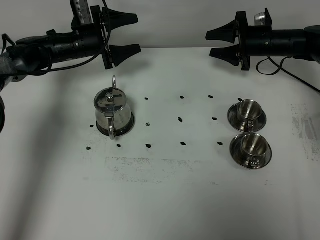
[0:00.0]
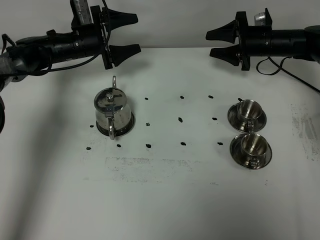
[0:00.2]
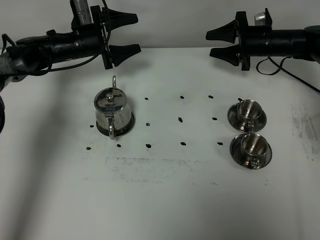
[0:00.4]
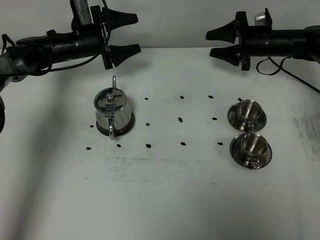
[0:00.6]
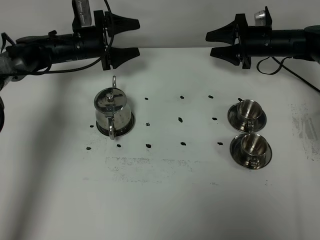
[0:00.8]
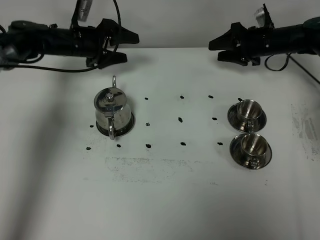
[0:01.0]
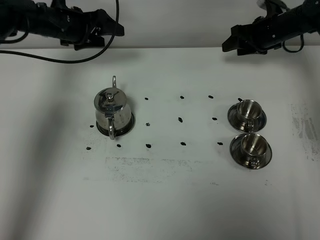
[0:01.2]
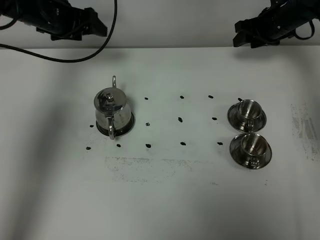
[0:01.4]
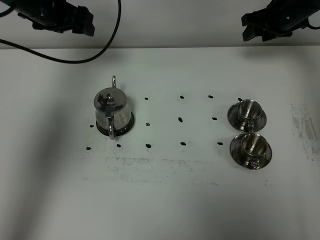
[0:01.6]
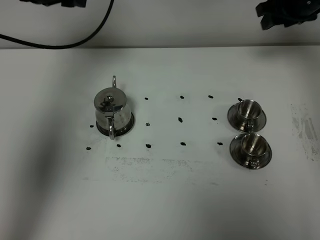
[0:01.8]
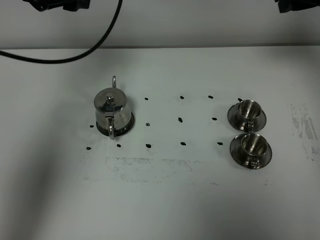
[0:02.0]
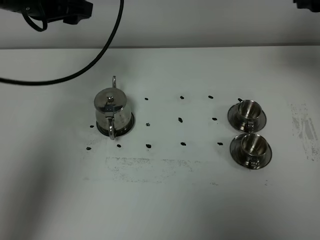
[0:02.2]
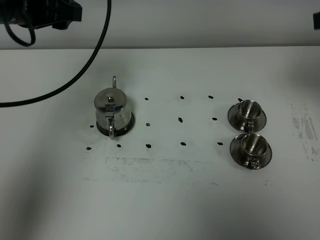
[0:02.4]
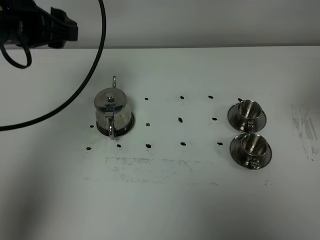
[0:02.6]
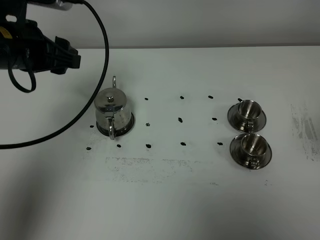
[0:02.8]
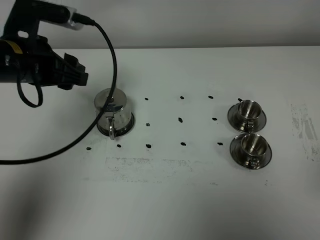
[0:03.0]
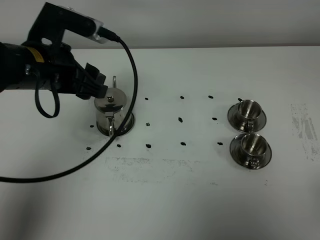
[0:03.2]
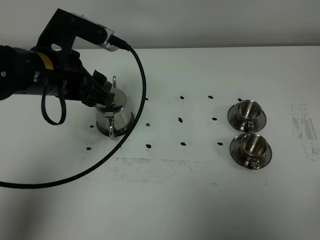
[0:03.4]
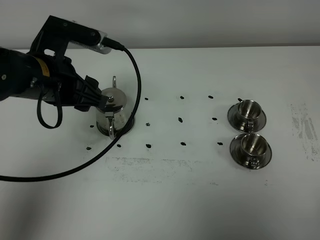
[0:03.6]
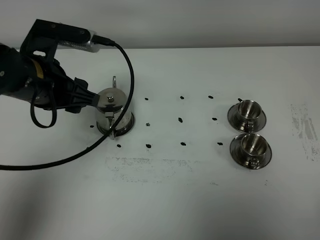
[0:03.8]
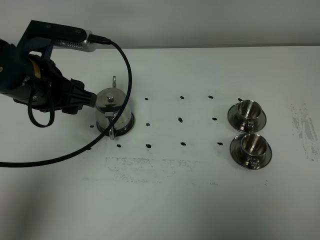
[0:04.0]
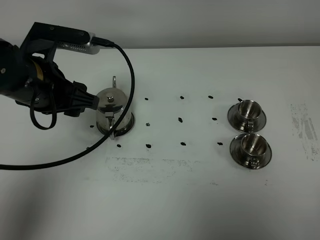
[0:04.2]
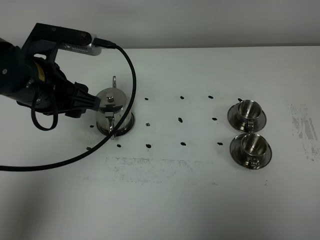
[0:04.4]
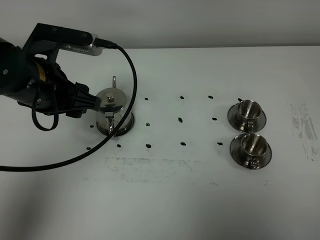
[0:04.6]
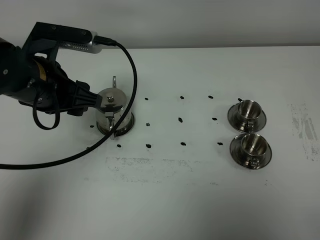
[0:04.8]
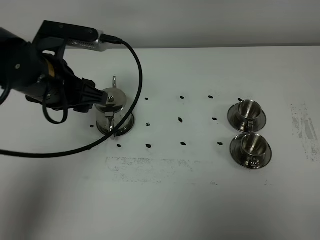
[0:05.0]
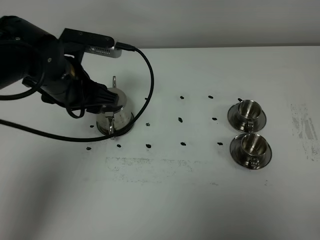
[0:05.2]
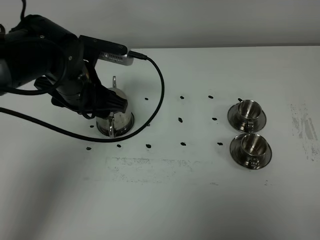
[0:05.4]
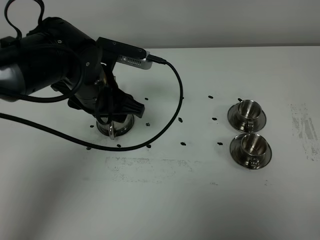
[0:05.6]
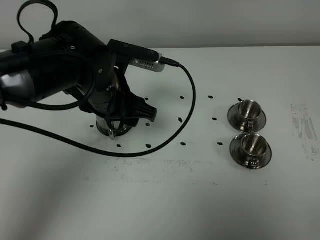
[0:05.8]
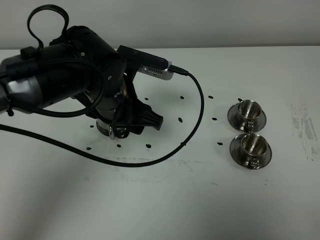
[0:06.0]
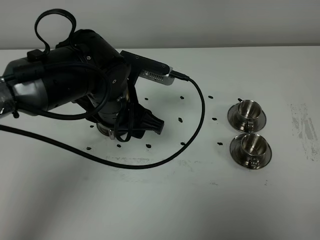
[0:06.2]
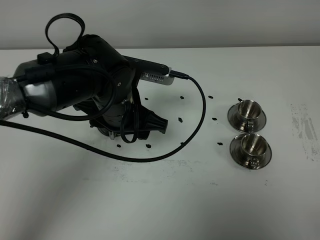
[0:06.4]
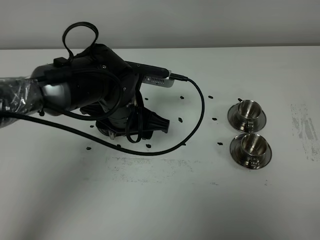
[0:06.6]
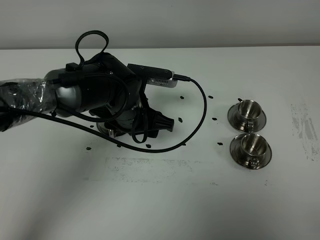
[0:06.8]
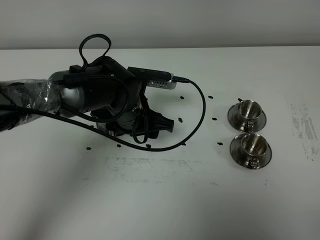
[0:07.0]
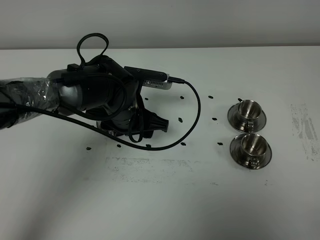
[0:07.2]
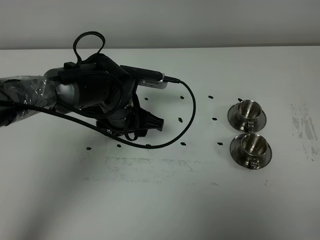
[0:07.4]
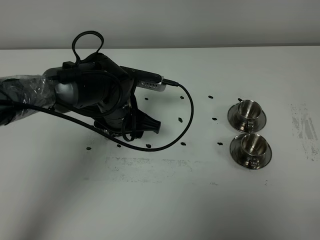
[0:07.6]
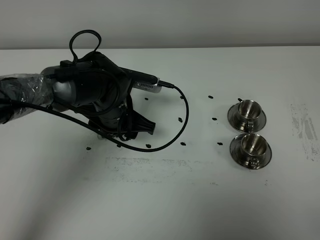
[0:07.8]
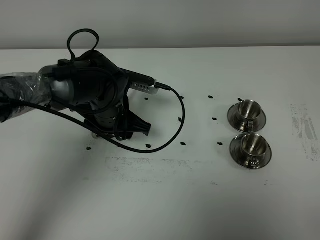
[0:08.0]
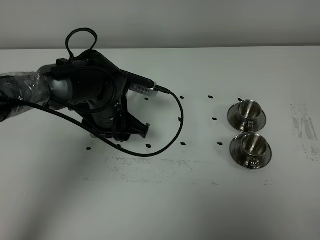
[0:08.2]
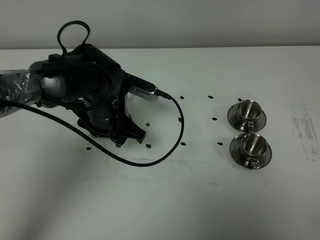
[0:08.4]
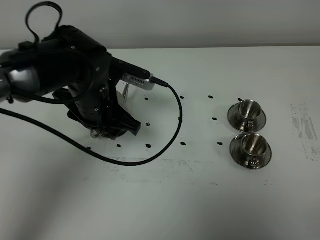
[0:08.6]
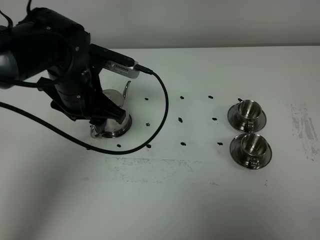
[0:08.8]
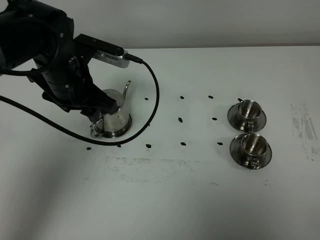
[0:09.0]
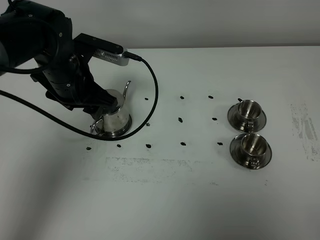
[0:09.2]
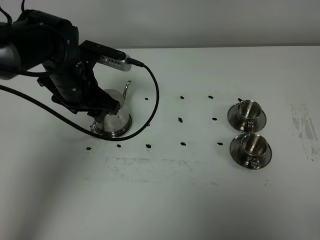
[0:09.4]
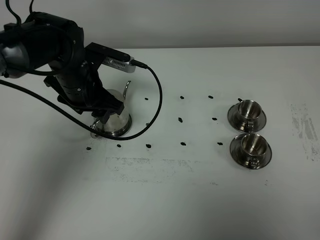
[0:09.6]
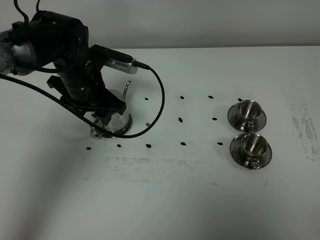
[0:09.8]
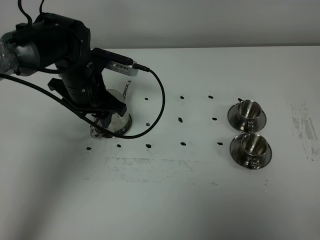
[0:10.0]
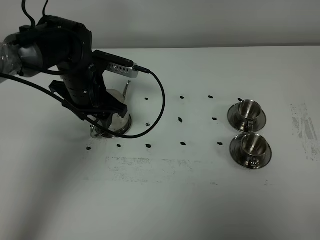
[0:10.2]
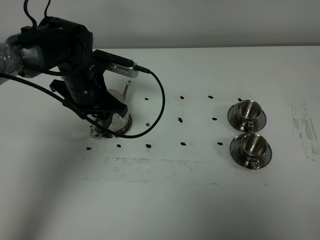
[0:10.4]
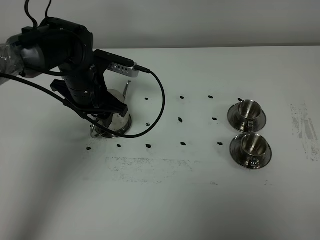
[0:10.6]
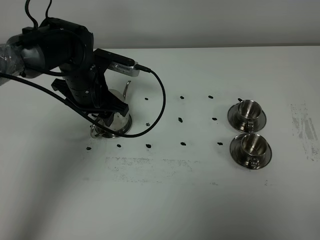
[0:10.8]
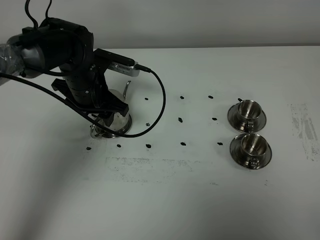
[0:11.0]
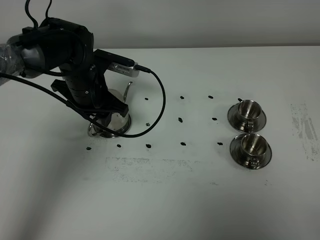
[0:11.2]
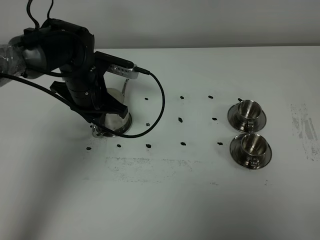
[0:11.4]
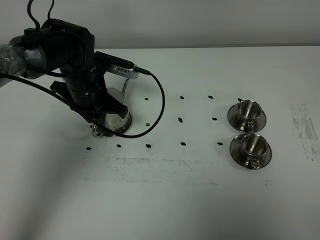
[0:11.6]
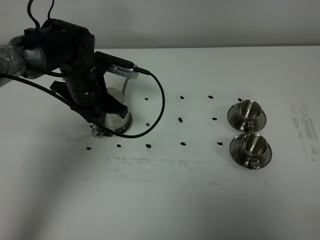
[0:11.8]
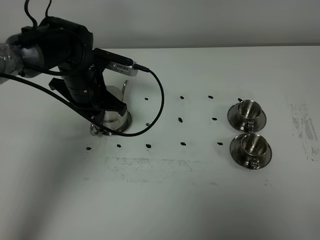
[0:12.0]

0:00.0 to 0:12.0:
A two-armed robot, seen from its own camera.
Task of the whole recording: grasp the stainless steel teapot and pour the tea into the two stainless steel teacups one by one, put the stainless steel teapot back in its original place.
0:00.0 to 0:01.6: The left gripper shifts approximately 15 cm upward; the right gripper goes approximately 10 cm upward.
0:01.6 to 0:03.0: The right gripper shifts approximately 50 cm backward. Meanwhile the left gripper shifts approximately 20 cm backward.
0:03.0 to 0:04.4: The right gripper is displaced downward and backward by about 10 cm, and closes.
0:04.4 to 0:06.0: The left gripper goes some 10 cm to the right, while the right gripper closes its fingers.
0:06.0 to 0:07.6: The left gripper moves downward, some 10 cm.
0:07.6 to 0:09.0: The left gripper is displaced upward and to the left by roughly 10 cm.
0:09.0 to 0:10.4: The left gripper shifts approximately 5 cm downward.
0:10.4 to 0:12.0: The left gripper closes.

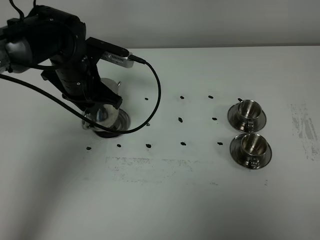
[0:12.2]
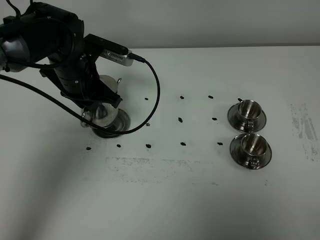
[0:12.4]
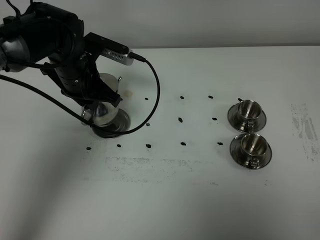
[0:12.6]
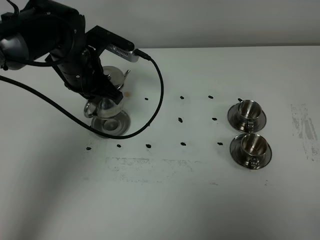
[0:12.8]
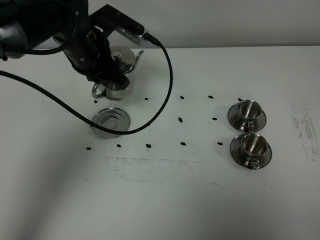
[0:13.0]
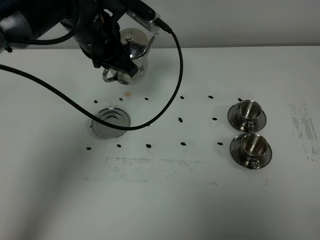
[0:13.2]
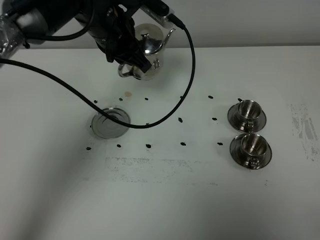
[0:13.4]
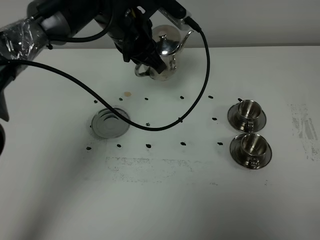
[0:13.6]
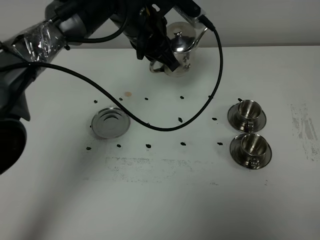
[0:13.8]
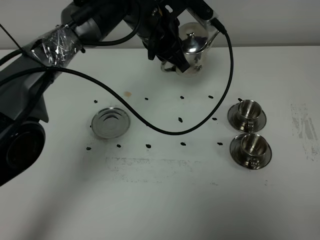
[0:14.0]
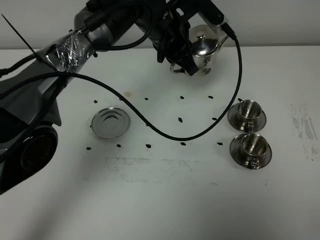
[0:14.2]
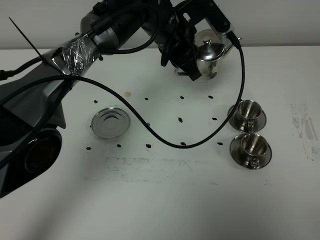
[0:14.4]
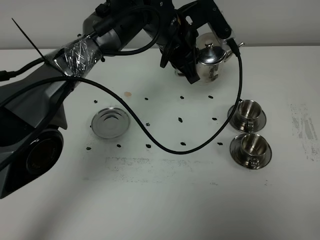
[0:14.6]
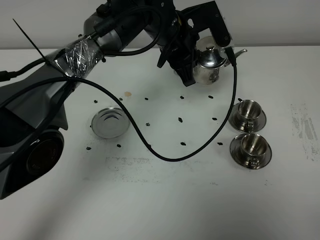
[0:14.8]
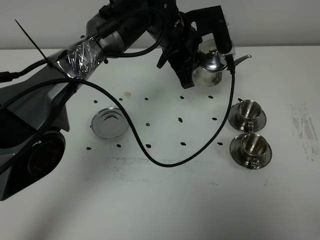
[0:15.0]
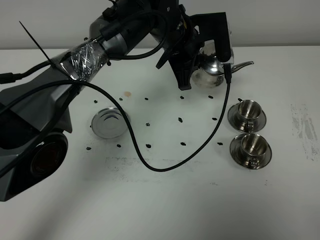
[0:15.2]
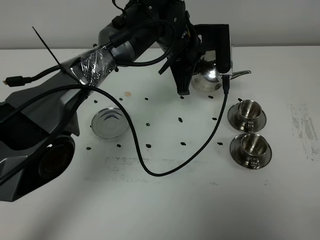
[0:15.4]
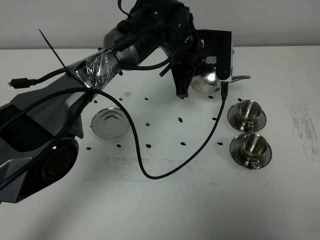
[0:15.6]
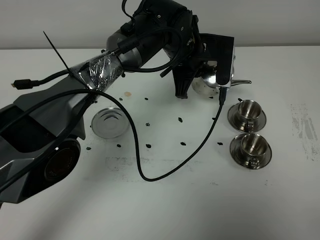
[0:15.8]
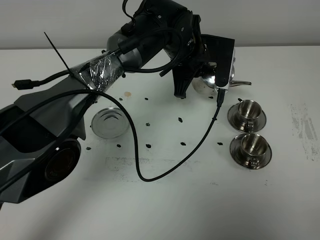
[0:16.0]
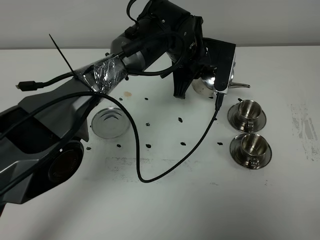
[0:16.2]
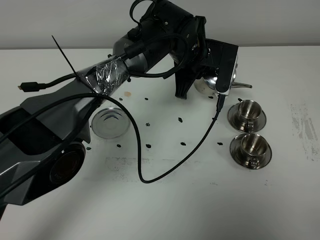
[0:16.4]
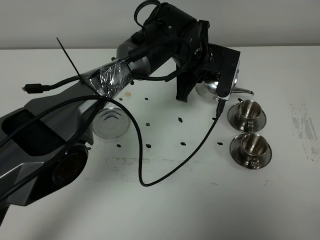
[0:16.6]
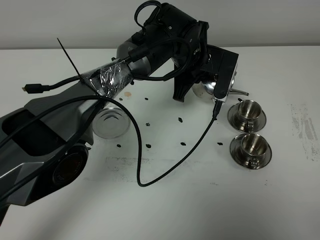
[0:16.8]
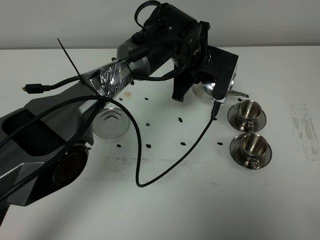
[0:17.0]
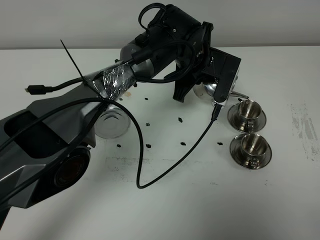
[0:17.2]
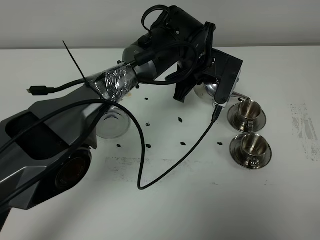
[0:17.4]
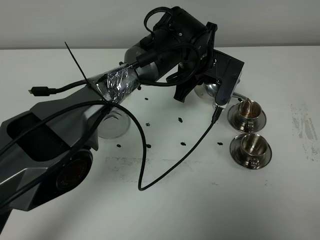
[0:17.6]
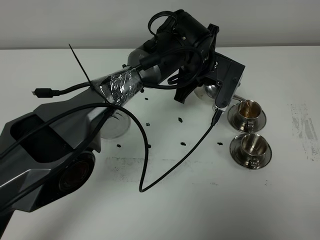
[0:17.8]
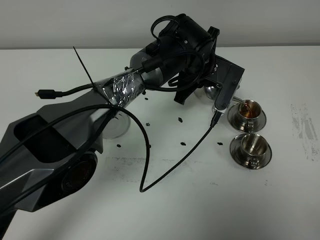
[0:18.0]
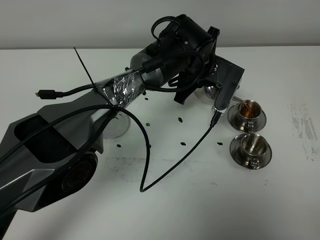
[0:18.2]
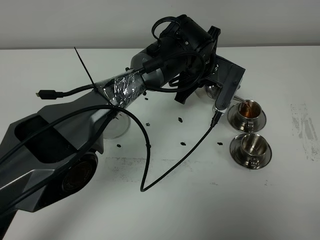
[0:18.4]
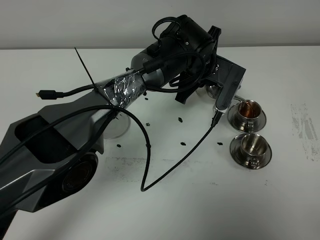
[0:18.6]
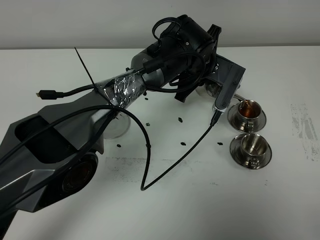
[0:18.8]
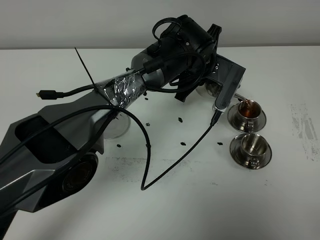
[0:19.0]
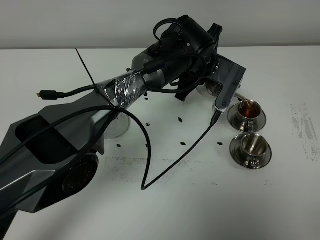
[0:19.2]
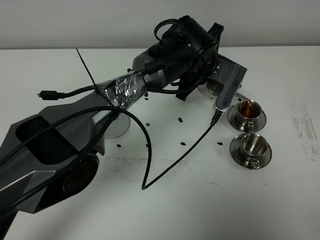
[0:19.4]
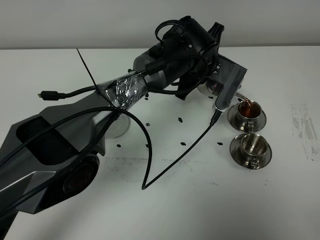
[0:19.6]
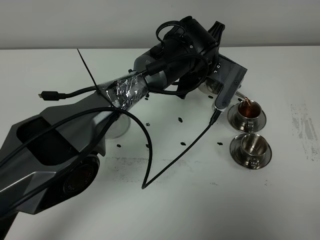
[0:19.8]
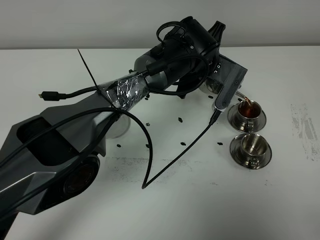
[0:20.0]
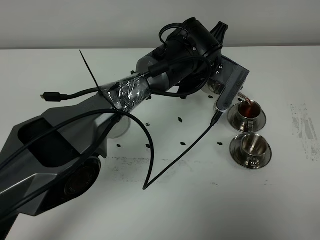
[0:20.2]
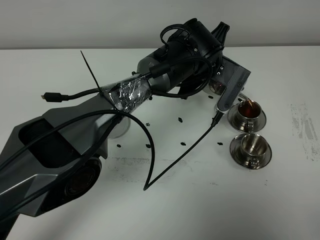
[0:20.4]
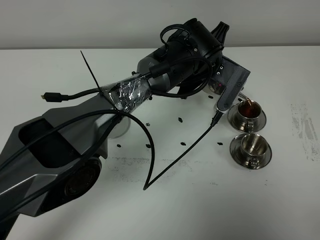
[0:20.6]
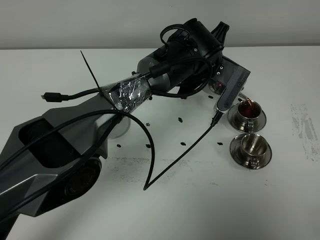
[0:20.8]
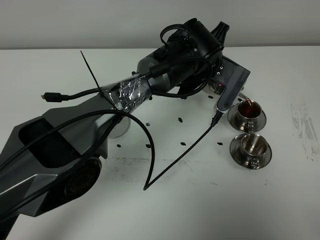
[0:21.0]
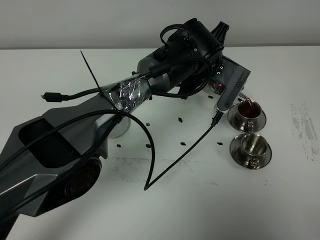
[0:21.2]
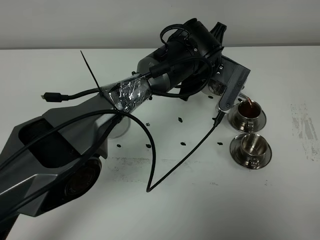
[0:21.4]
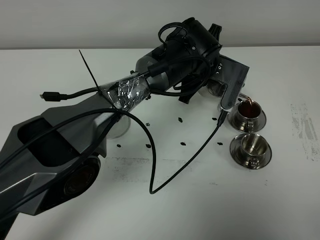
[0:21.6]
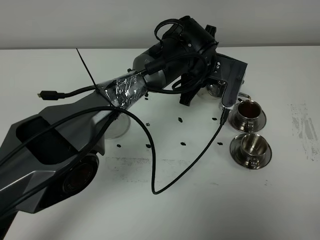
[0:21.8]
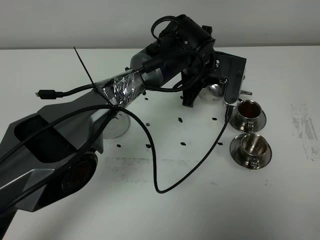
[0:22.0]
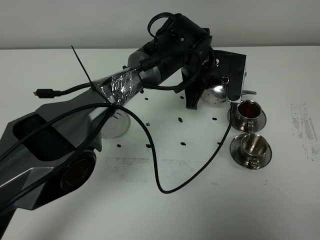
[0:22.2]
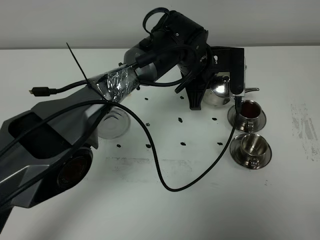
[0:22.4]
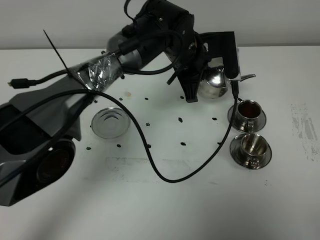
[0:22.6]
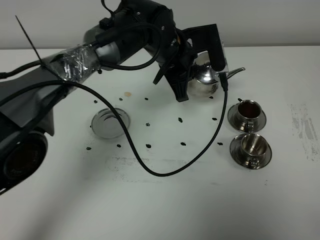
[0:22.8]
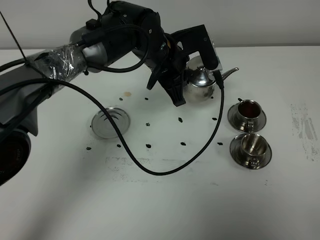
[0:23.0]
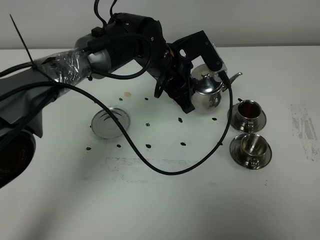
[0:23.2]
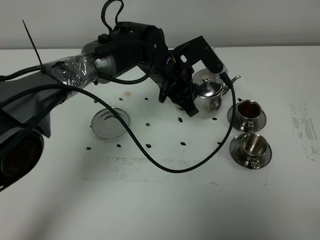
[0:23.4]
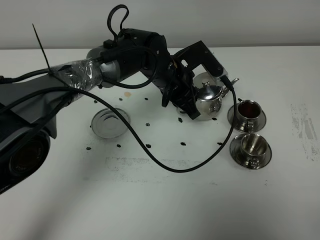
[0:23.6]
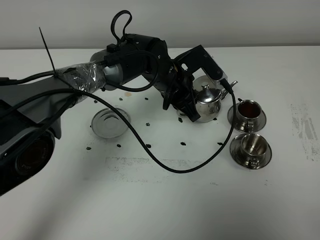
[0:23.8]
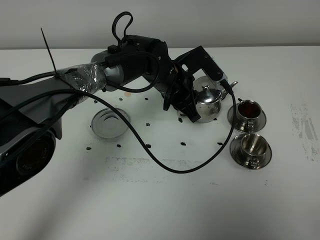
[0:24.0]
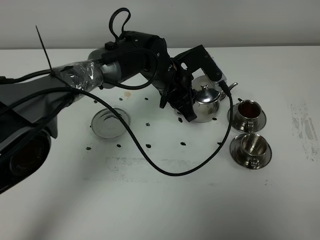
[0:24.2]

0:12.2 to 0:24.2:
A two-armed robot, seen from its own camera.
Task of the whole recording: grasp the stainless steel teapot and pour the tea into the two stainless steel teacups one by one, put the stainless steel teapot back in its original place.
0:12.2 to 0:13.8: The left gripper goes approximately 15 cm to the right and upward.
0:13.8 to 0:15.2: The left gripper is displaced to the right by about 5 cm.
0:16.6 to 0:19.8: The grippers stay close to where they were, moving slightly.
0:19.8 to 0:21.2: Both grippers stay put.
0:22.6 to 0:24.2: The left gripper moves approximately 5 cm.
